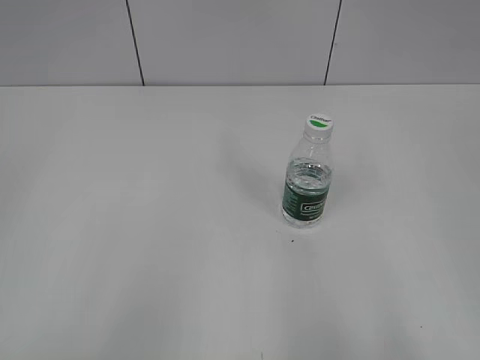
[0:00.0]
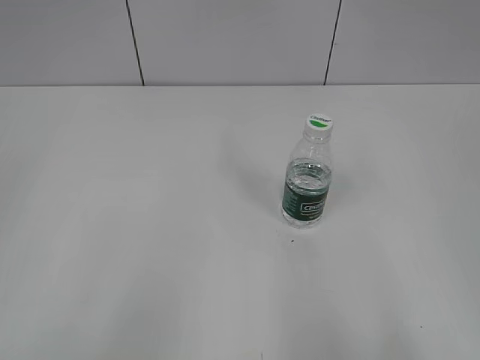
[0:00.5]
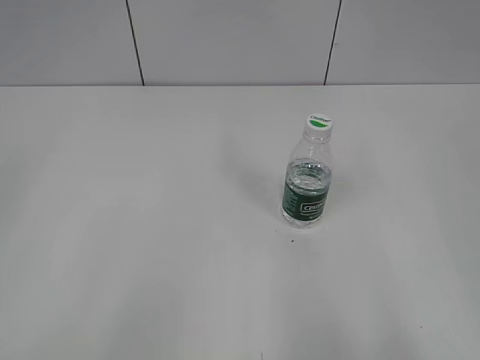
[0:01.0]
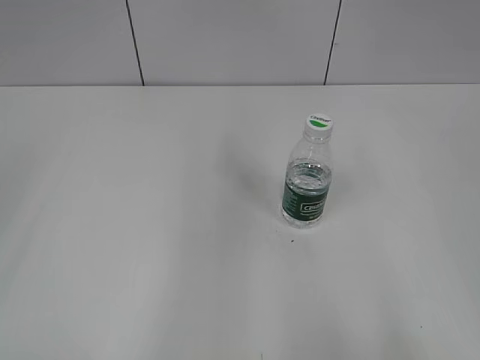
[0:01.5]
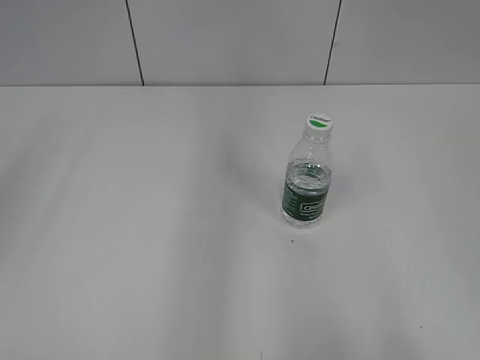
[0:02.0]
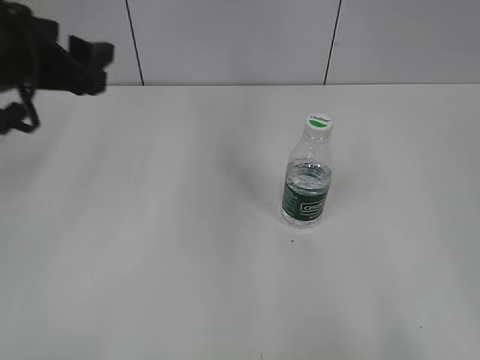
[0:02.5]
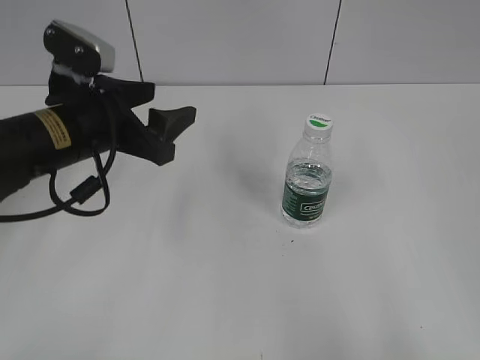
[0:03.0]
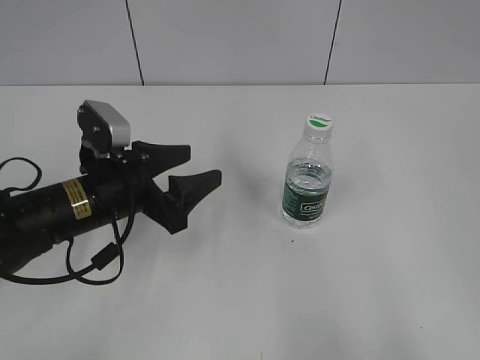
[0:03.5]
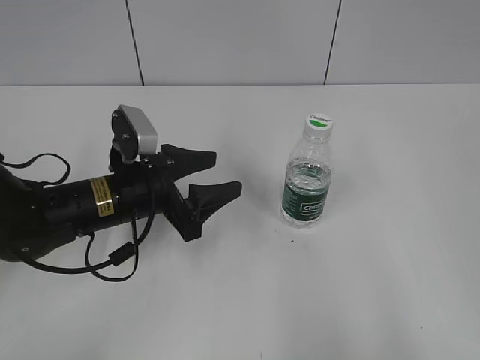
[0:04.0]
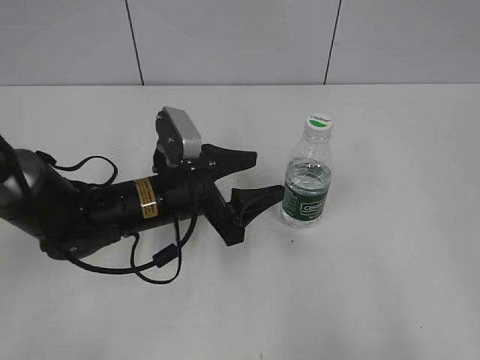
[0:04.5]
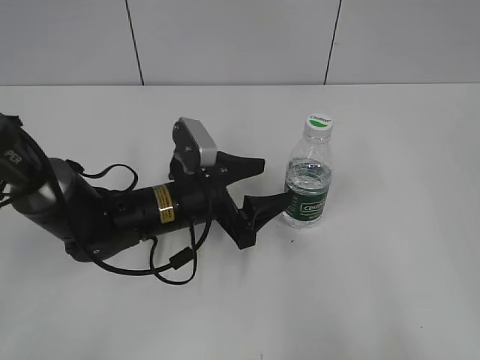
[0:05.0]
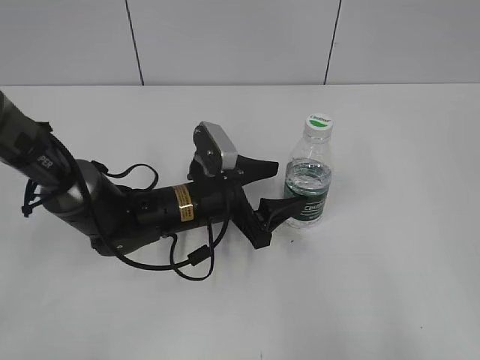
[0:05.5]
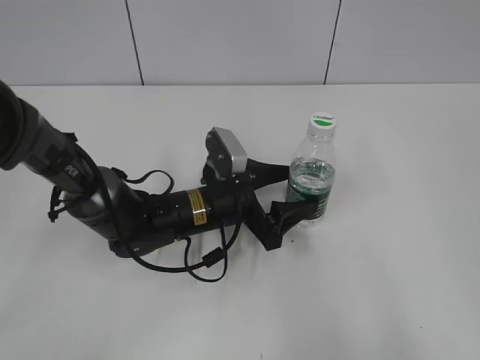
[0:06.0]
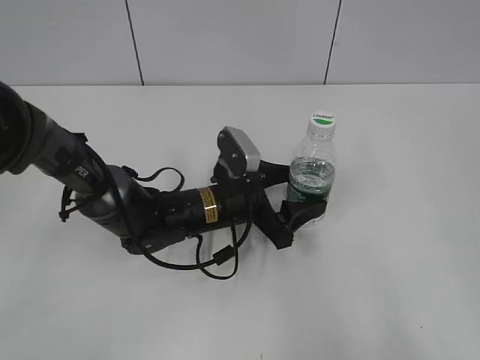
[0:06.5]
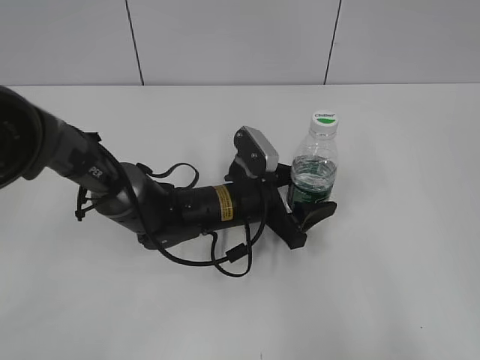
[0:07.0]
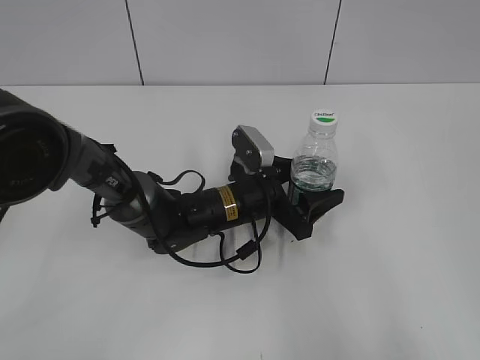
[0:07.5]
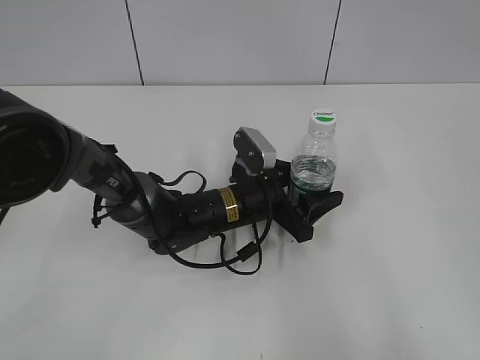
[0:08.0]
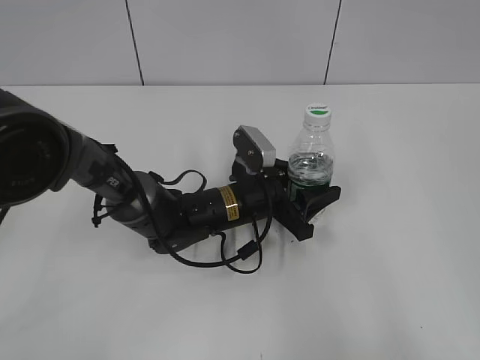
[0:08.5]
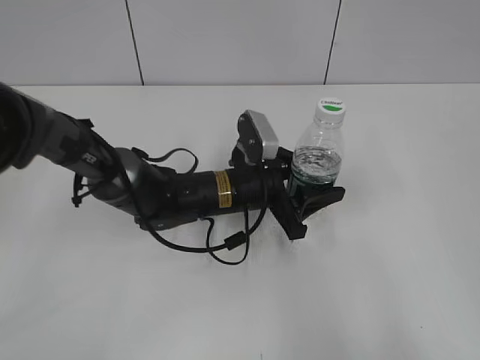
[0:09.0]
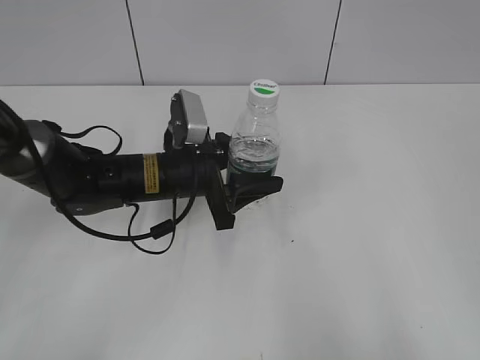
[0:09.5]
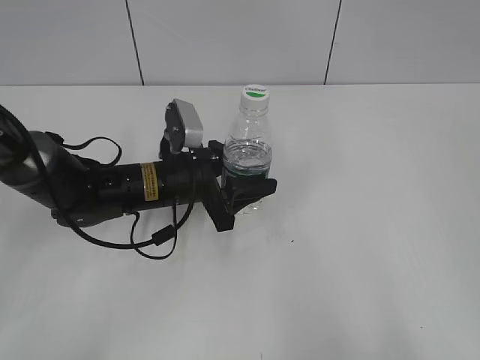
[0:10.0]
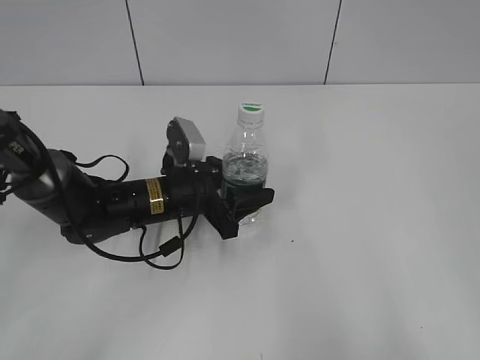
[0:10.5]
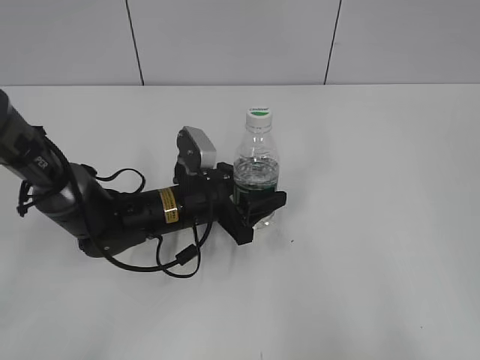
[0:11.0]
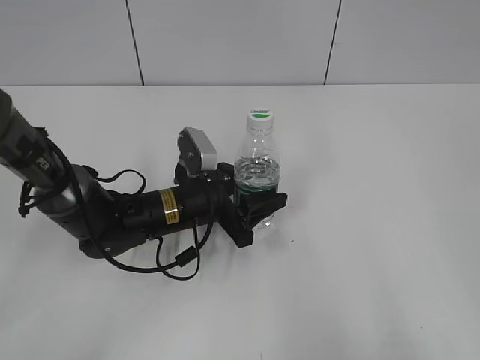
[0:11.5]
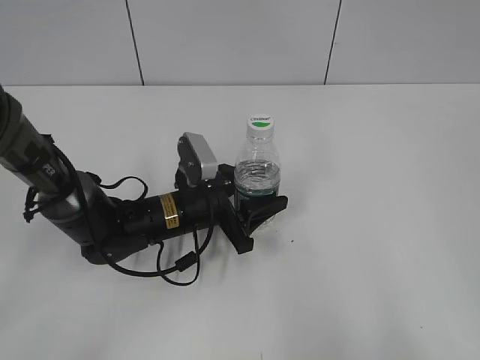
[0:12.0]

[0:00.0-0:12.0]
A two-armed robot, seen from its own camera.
Step, 0:00.0 to 0:08.0: Grasp the bottle and move it to the center of the table with the left gripper.
Step, 0:08.5 to 0:11.5: Lift the bottle and move it to the center of the table with the left gripper.
0:02.0 to 0:04.0: The left gripper travels downward and to the right by some 30 cm.
0:04.0 to 0:06.0: The left gripper is displaced to the right and downward by roughly 10 cm.
0:06.0 to 0:08.0: There are only small adjustments of the grippers.
0:08.0 to 0:10.0: The left gripper goes about 10 cm to the left and upward, and closes.
0:10.0 to 0:12.0: The left gripper shifts by roughly 5 cm.

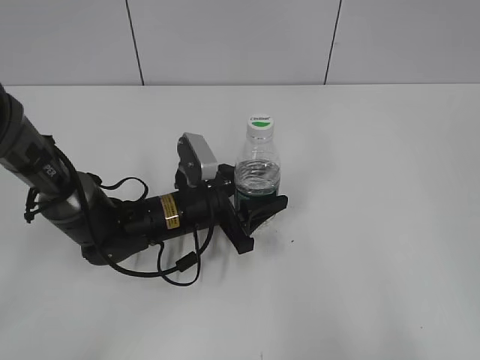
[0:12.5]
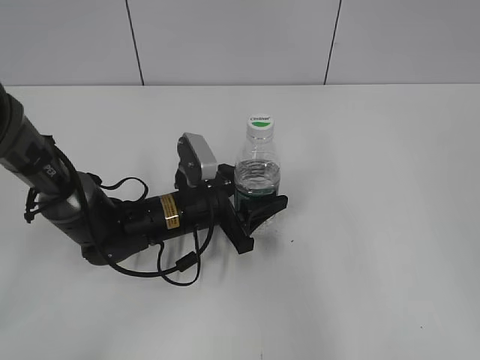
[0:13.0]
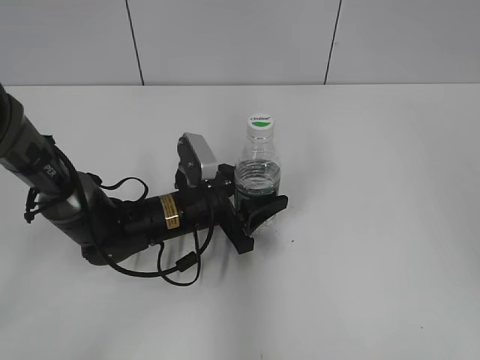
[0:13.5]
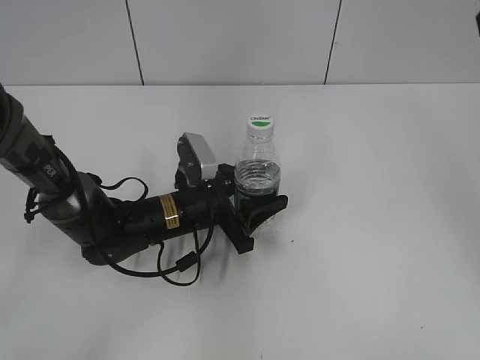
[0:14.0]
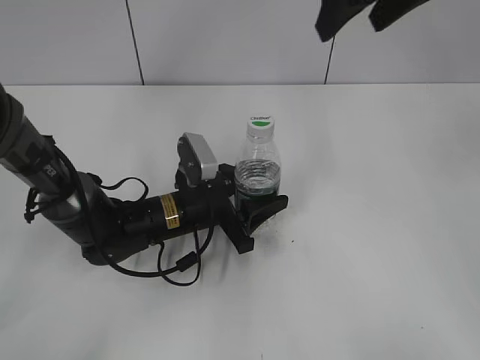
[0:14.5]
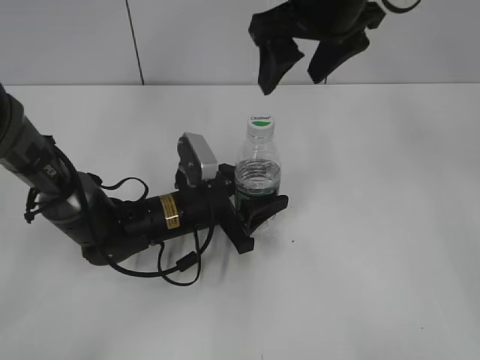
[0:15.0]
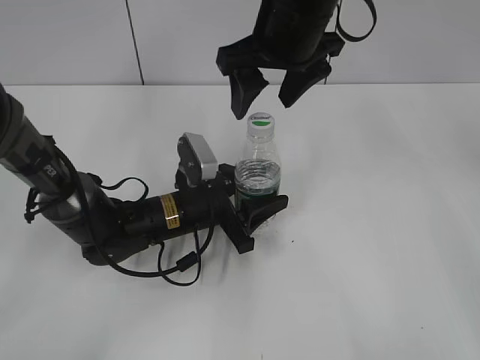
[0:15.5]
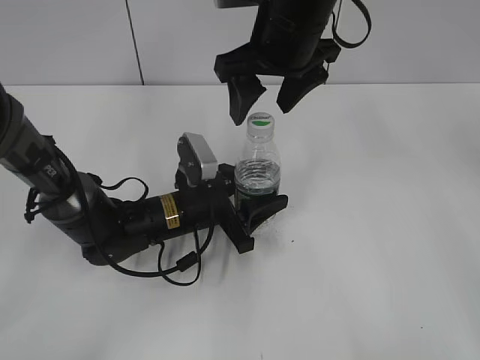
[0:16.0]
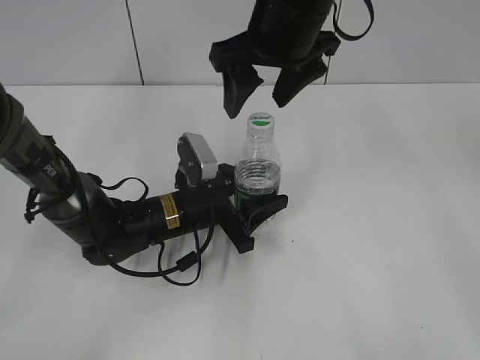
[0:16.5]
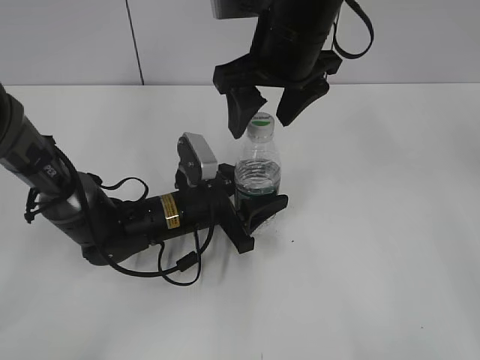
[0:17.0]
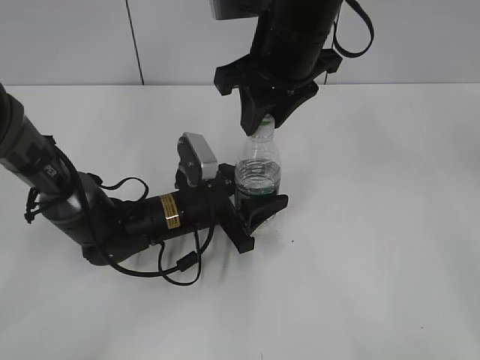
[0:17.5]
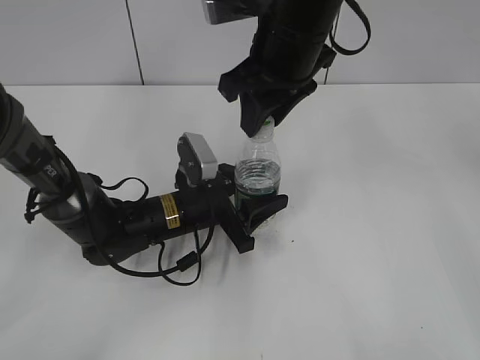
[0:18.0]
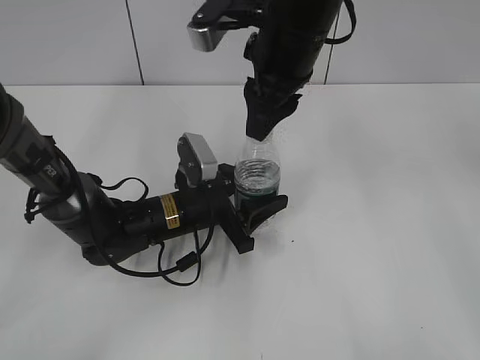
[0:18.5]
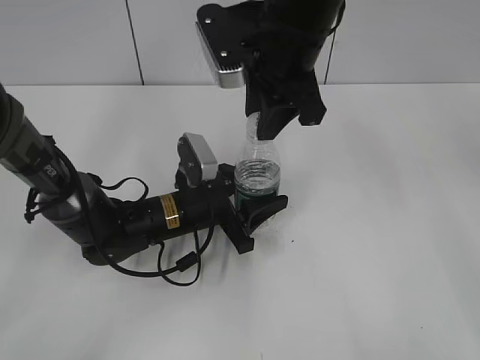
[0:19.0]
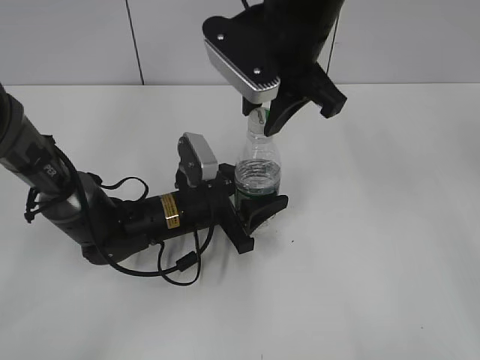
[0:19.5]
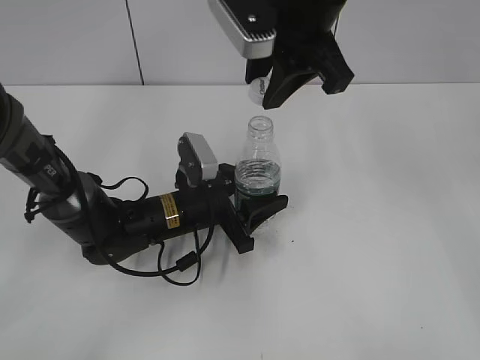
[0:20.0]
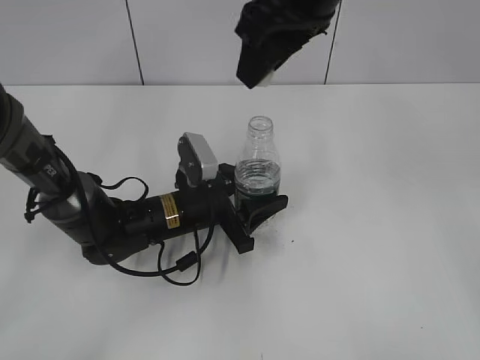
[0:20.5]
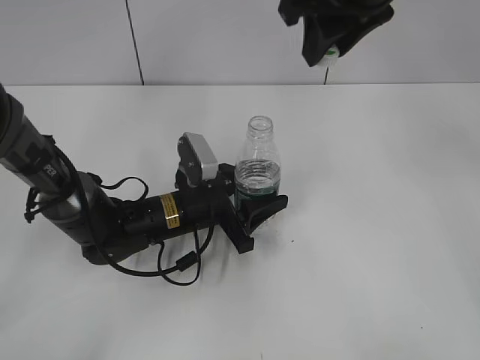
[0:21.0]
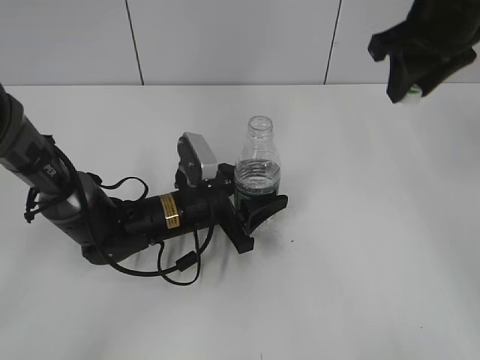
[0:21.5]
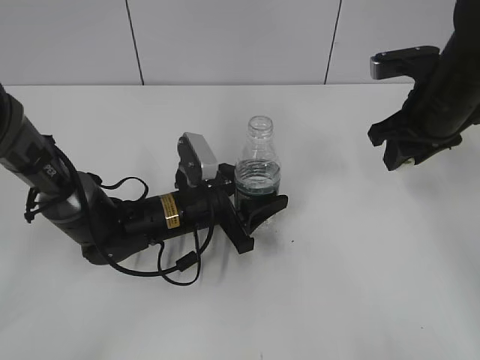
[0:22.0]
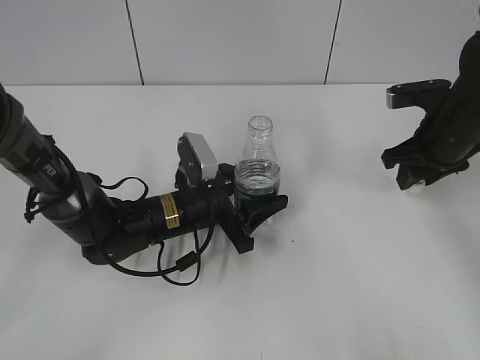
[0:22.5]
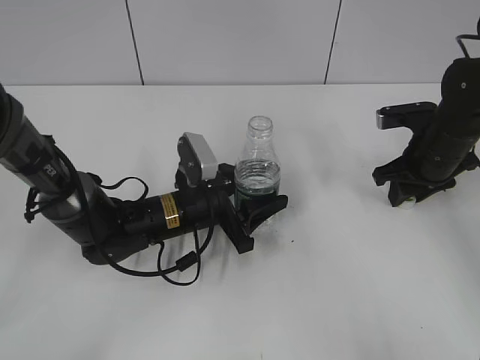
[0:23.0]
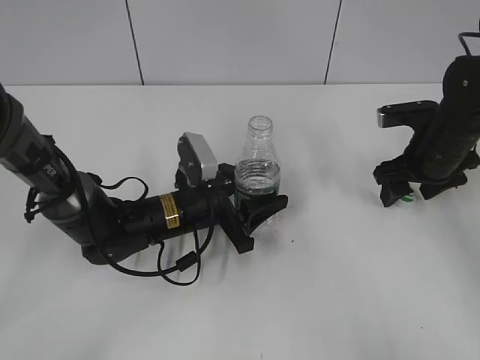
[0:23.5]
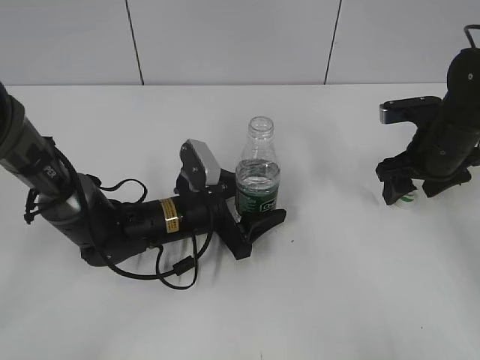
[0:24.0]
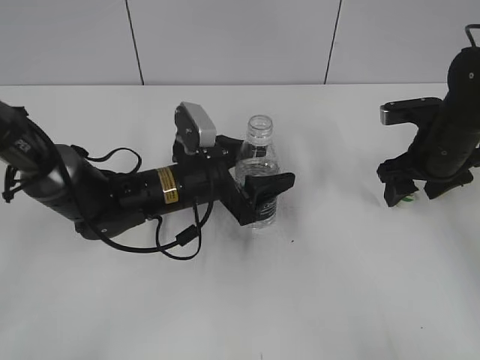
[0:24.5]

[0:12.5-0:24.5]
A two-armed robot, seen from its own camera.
Step, 0:12.5 to 0:20.0: Unscrew the bottle cap with the right gripper while holding the bottle with the left gripper.
Step, 0:20.5 to 0:23.5: Place the bottle cap on the table with the right gripper.
0:12.5 to 0:14.5: The right gripper travels forward and to the left by about 40 cm.
0:14.5 to 0:16.5: The right gripper shifts roughly 15 cm to the left and downward.
0:16.5 to 0:18.5: The right gripper closes.
0:18.5 to 0:20.5: The right gripper goes roughly 5 cm upward.
0:20.5 to 0:22.5: The right gripper heads to the right and downward, covering some 30 cm.
0:22.5 to 0:24.5: The left gripper opens, while the right gripper opens up.

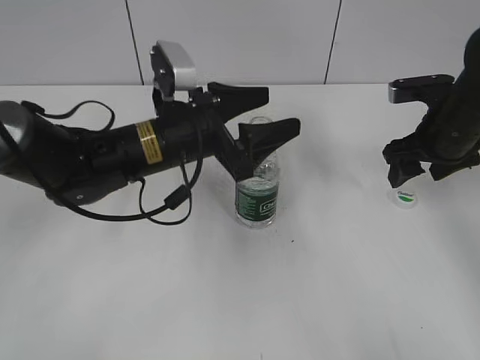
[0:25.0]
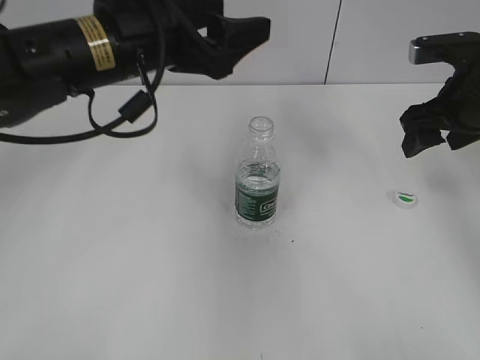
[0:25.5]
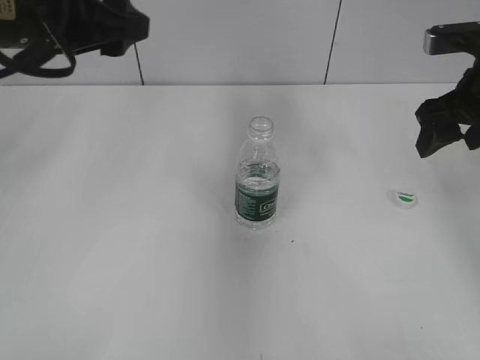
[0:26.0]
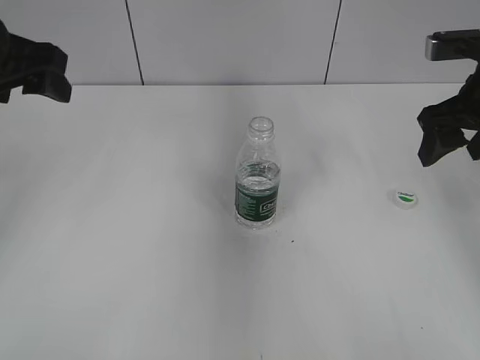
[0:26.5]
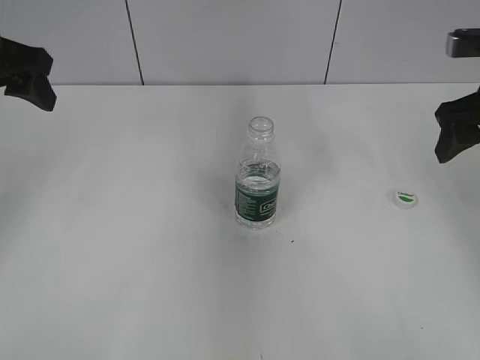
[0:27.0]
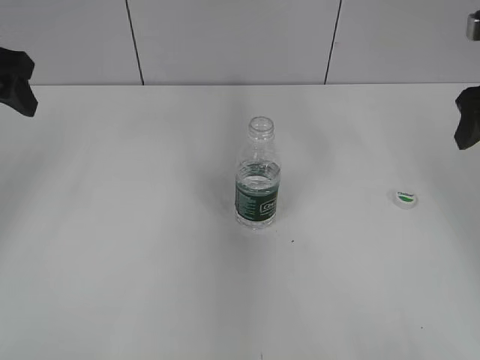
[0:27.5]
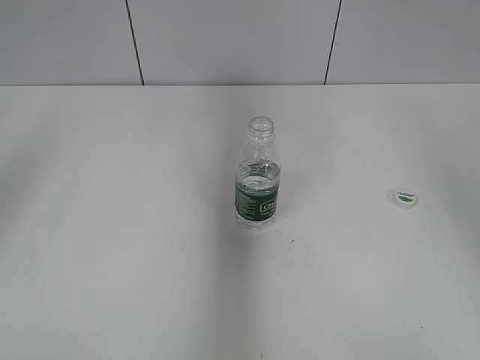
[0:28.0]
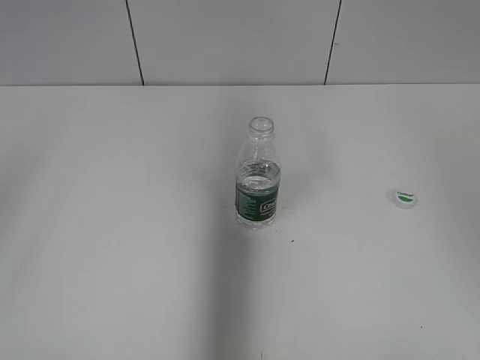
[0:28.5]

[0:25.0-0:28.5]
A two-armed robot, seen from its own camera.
0:25.0 to 0:27.0: The right gripper travels upward by about 10 cm. Meanwhile the left gripper goes roughly 25 cm to the left and upward.
0:27.0 to 0:28.5: Both grippers travel together backward and upward, about 20 cm.
